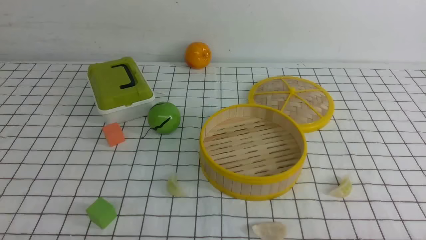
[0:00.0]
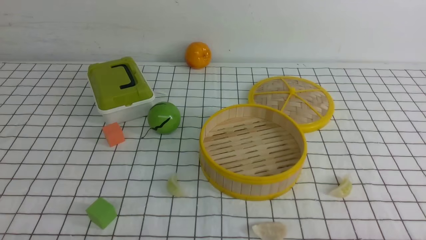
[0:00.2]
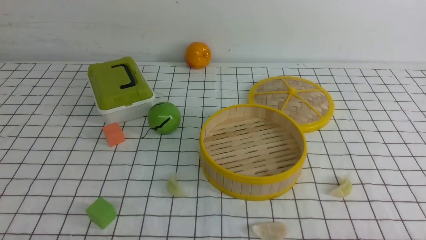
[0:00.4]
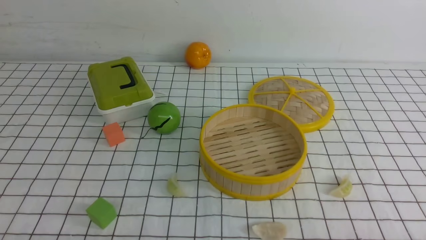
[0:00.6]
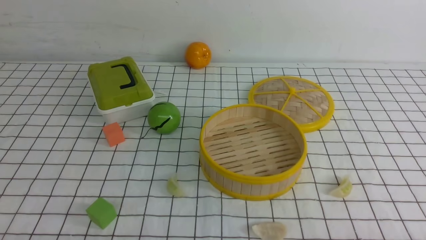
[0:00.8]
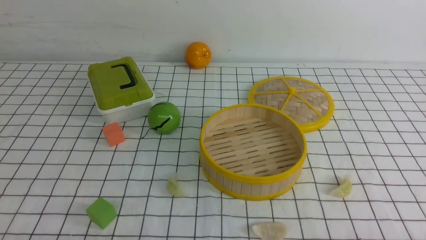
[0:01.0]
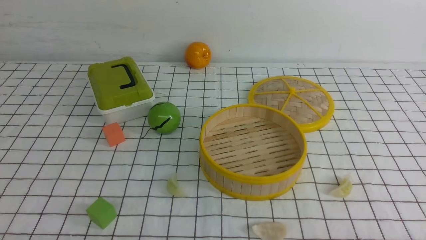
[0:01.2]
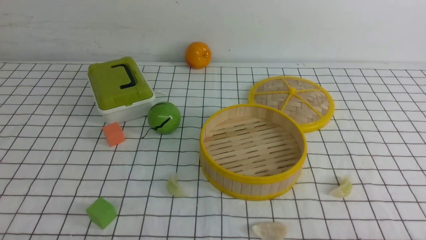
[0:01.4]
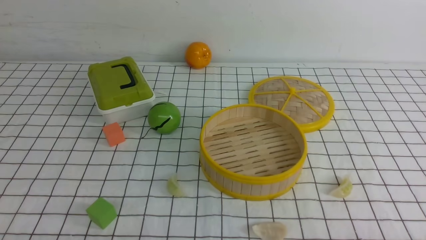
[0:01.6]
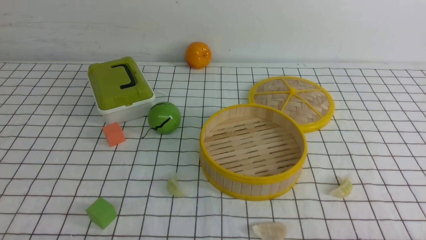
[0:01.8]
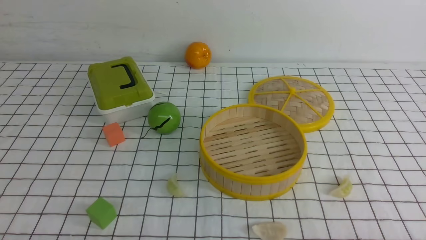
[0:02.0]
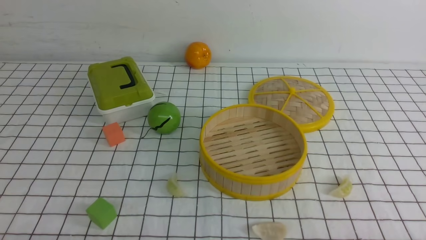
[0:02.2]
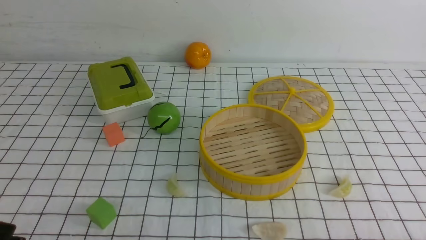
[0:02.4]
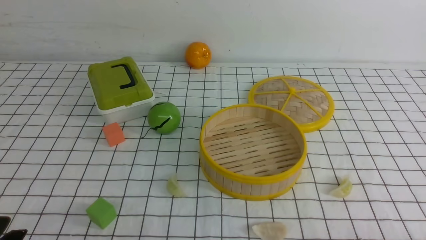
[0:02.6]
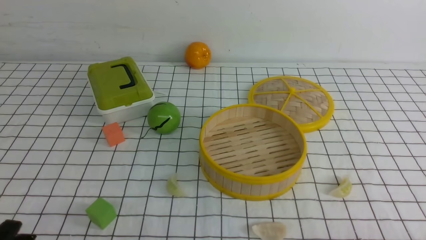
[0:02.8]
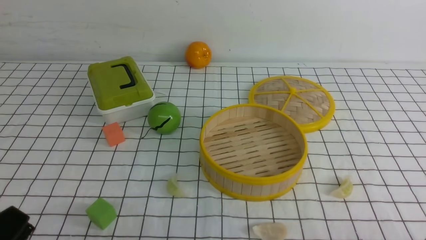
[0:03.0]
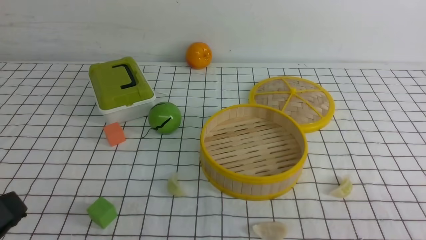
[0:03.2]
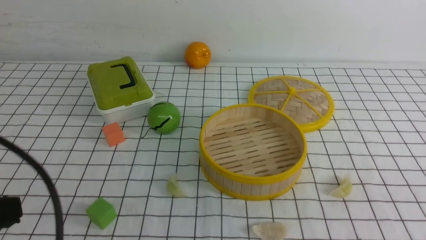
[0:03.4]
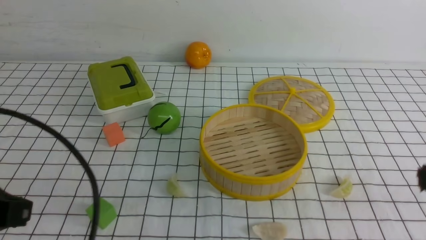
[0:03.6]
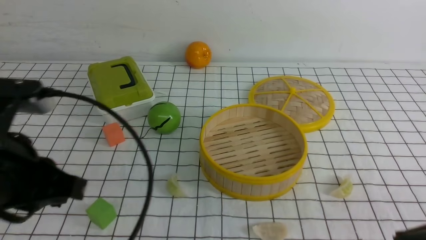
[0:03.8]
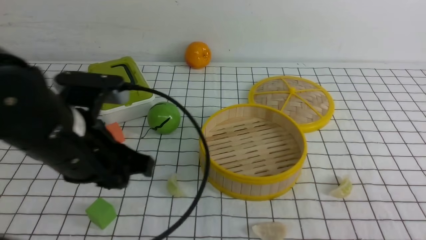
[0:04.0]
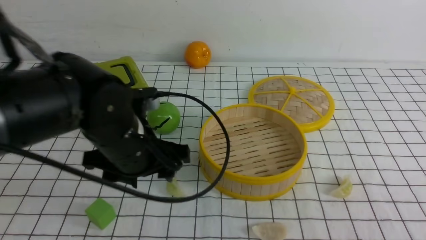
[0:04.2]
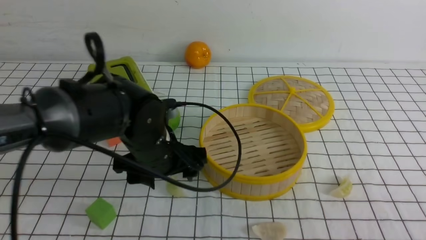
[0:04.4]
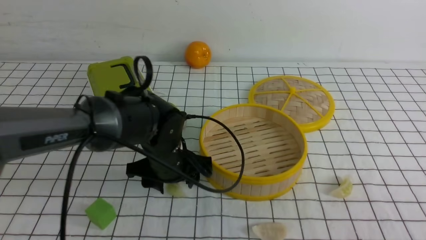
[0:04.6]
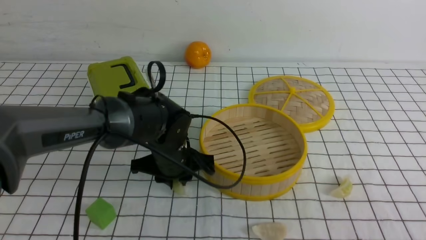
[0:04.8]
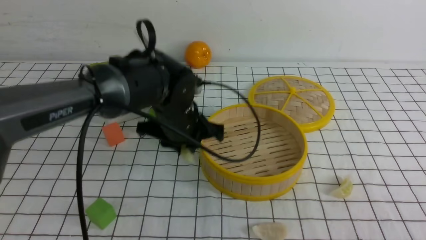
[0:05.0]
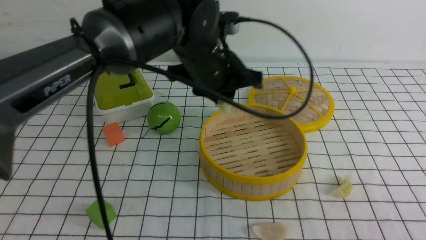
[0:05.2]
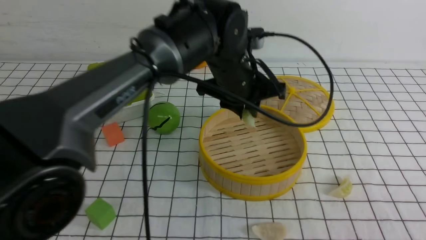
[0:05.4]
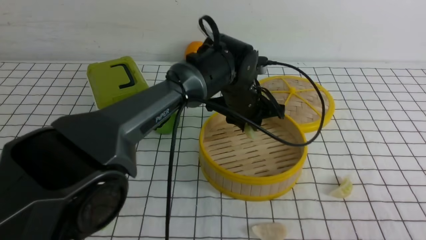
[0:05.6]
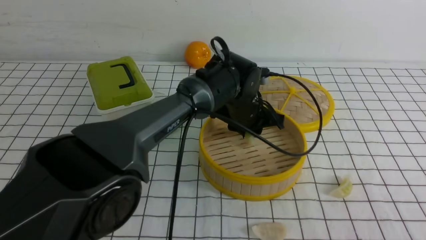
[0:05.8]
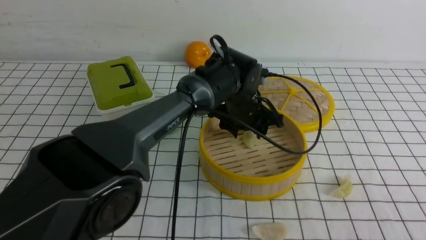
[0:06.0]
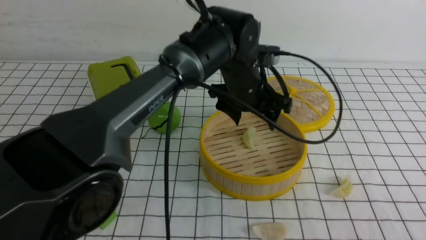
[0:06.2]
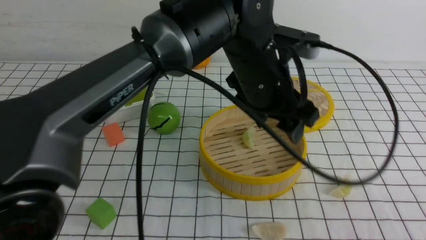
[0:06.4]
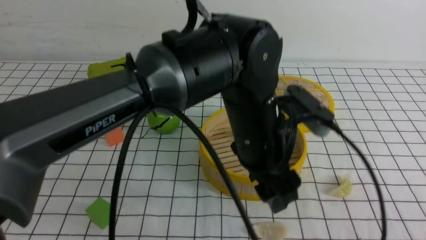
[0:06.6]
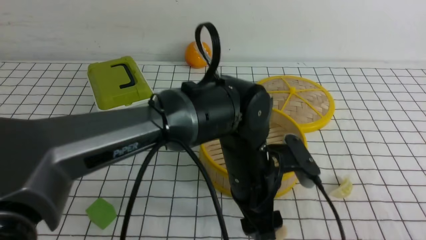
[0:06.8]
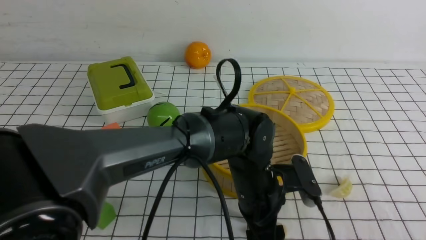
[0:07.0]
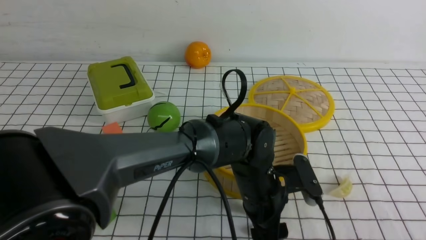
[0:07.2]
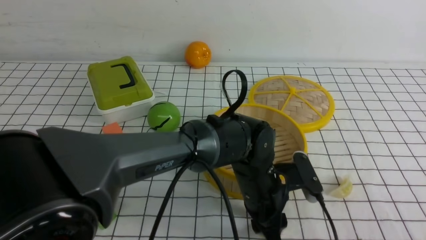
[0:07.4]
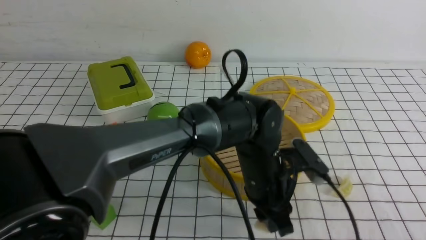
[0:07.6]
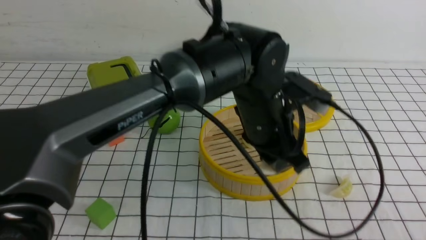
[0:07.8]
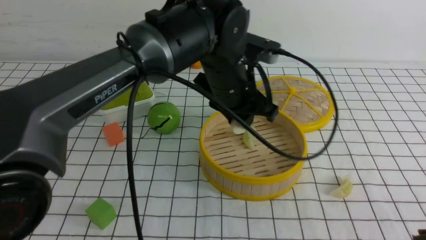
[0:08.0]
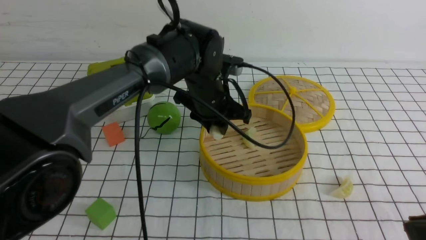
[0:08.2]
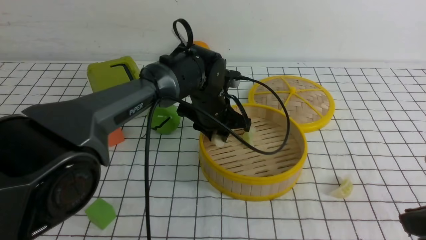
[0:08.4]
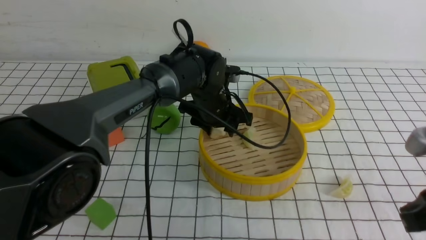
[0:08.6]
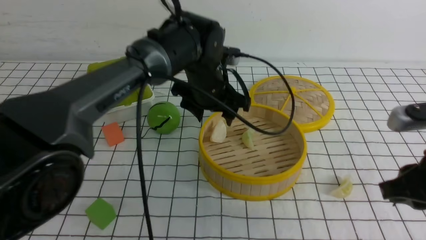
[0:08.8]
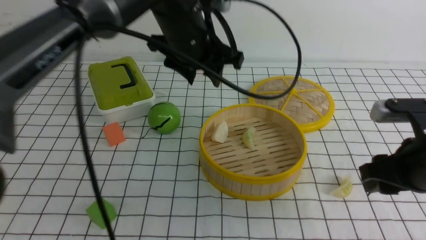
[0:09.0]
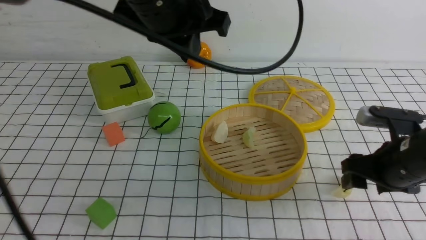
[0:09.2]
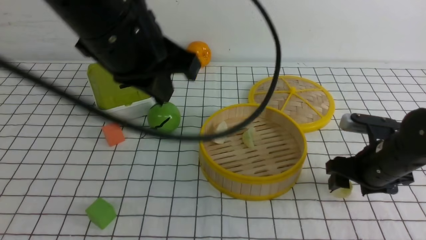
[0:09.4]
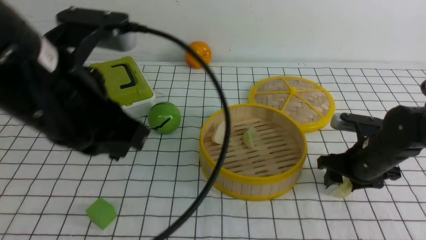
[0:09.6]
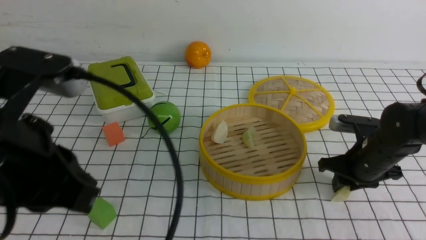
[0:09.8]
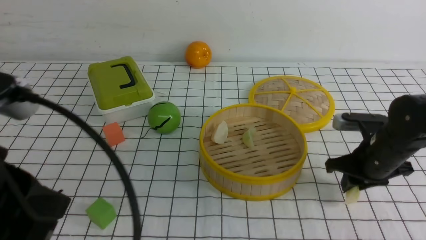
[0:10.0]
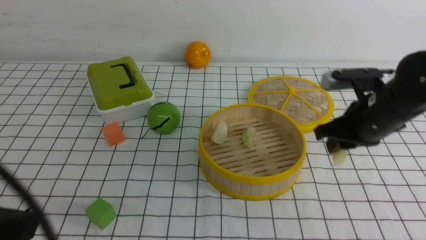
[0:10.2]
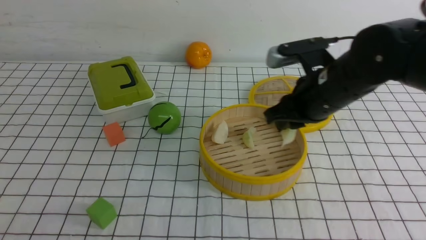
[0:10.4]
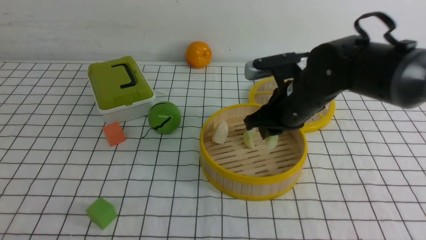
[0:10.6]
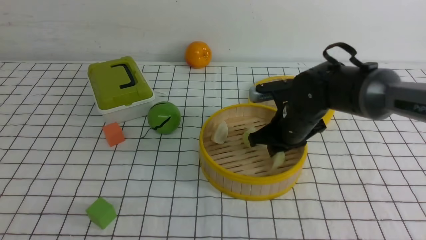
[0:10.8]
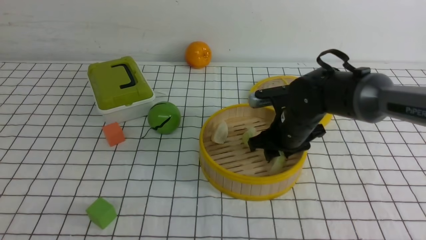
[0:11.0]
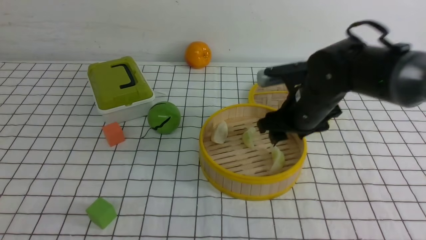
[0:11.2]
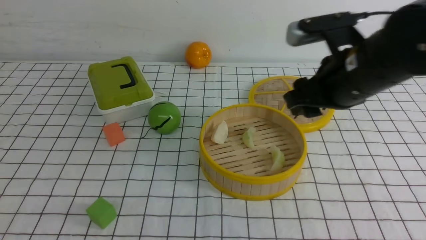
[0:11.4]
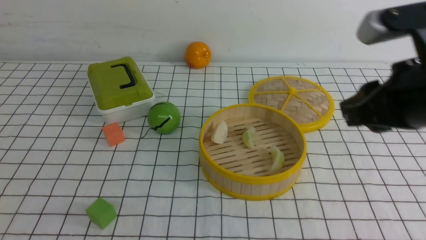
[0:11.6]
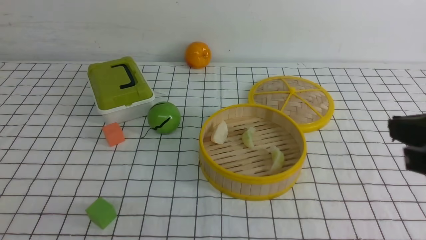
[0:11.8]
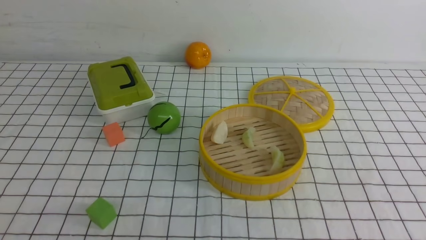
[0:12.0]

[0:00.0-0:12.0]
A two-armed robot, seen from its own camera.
Task of the whole recording: put the dumplings into the steamer on the table with the white tablecloth.
Step, 0:00.0 to 0:05.2: use the left arm to grab a dumpling.
Step, 0:05.4 to 0:06.4: use the left arm to put the dumpling into the steamer.
Step, 0:06.6 to 0:07.8: use the left arm to grab a dumpling.
Step, 0:08.0 to 0:09.0: use the left arm to put the dumpling into the steamer.
Step, 0:09.2 to 0:10.2: use the right arm to grab a dumpling.
Step, 0:10.4 to 0:11.2: use the right arm to put the dumpling into the steamer.
0:01.6 to 0:03.0: The left gripper travels upward by approximately 5 cm.
0:03.0 to 0:04.4: The left gripper heads forward and to the right, covering about 30 cm, and opens. The right gripper moves upward, about 10 cm, and closes its fingers.
0:04.4 to 0:06.0: The left gripper heads to the right and forward, covering roughly 20 cm.
0:06.0 to 0:07.6: The left gripper travels backward by approximately 15 cm, and opens, then closes once more.
0:07.6 to 0:09.0: The left gripper goes approximately 20 cm upward, to the left and forward; the right gripper moves forward, roughly 15 cm, and opens.
0:09.0 to 0:10.4: The right gripper goes roughly 15 cm forward and to the left, and opens, then closes again, while the left gripper travels backward and to the left by roughly 40 cm, and closes its fingers.
0:10.4 to 0:12.0: The left gripper shifts roughly 5 cm backward, while the right gripper goes approximately 25 cm backward and upward, and opens, then closes again.

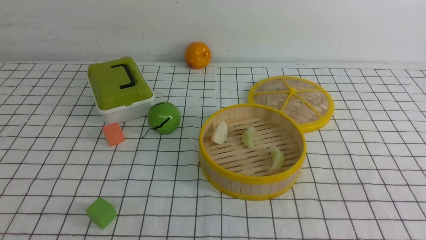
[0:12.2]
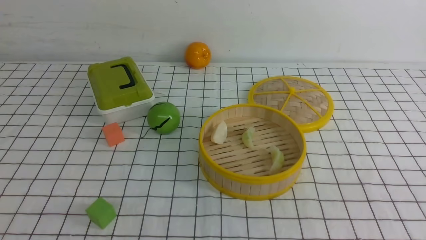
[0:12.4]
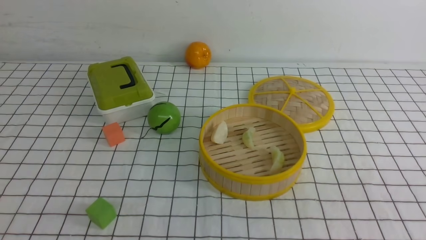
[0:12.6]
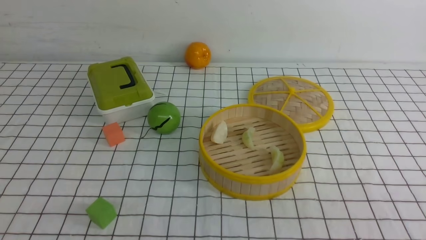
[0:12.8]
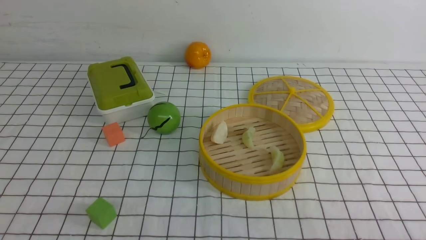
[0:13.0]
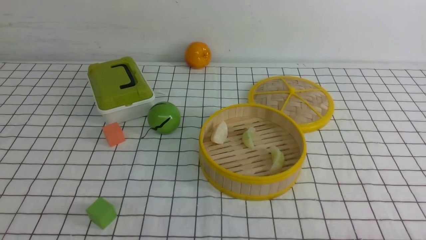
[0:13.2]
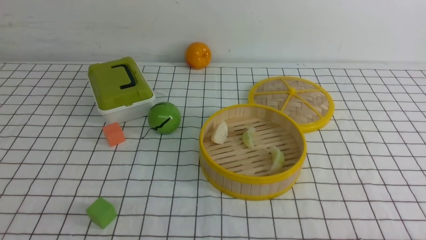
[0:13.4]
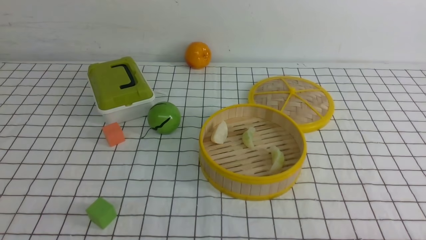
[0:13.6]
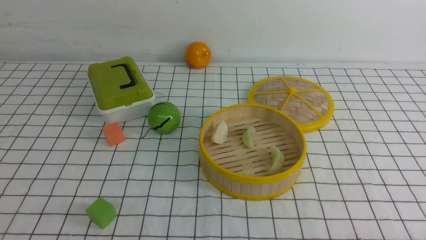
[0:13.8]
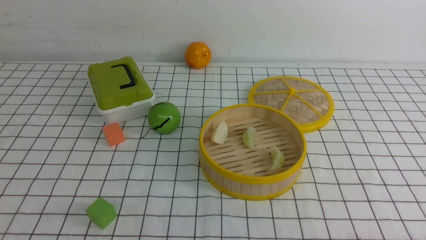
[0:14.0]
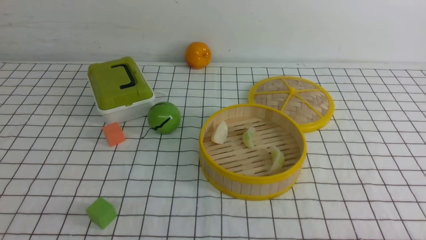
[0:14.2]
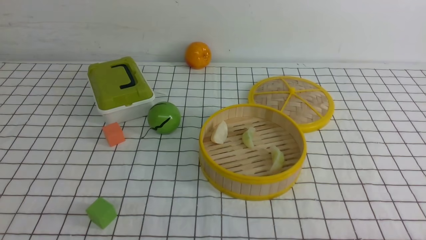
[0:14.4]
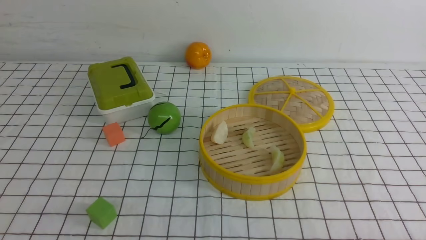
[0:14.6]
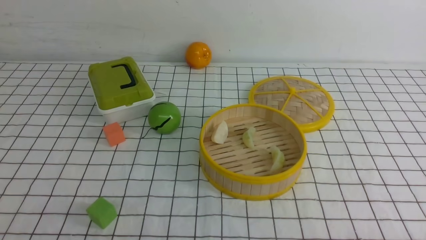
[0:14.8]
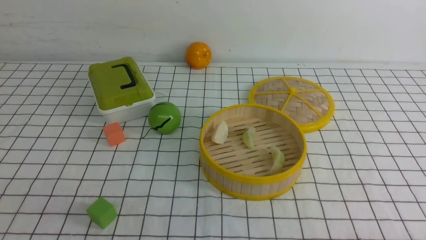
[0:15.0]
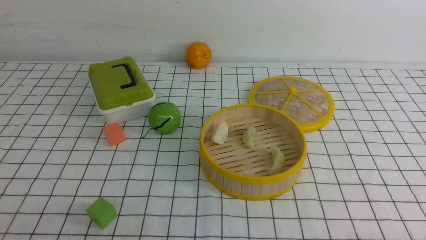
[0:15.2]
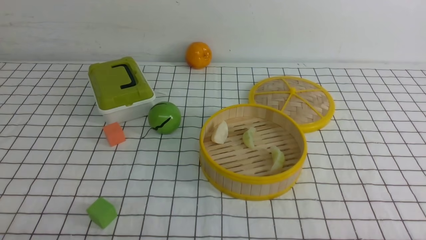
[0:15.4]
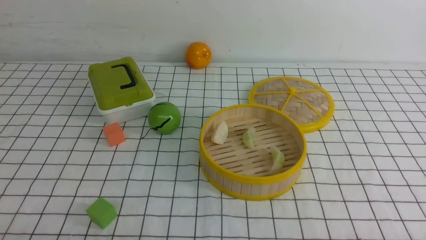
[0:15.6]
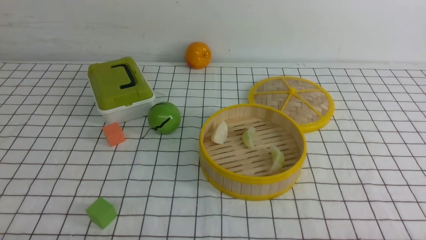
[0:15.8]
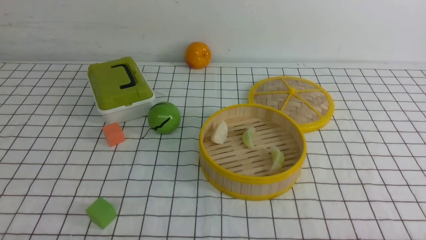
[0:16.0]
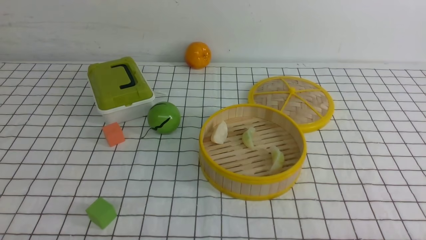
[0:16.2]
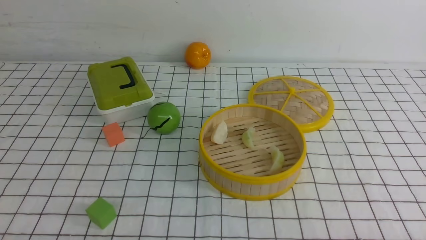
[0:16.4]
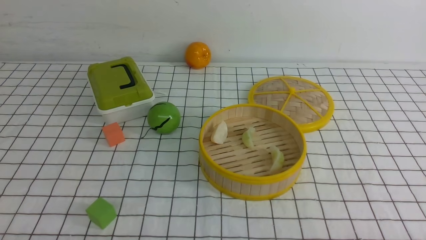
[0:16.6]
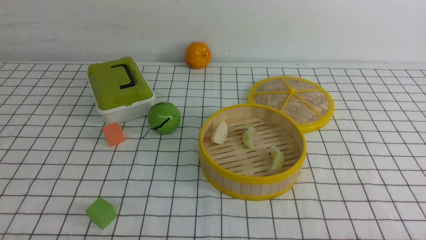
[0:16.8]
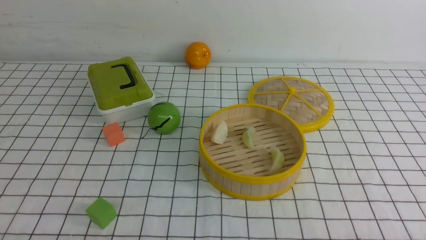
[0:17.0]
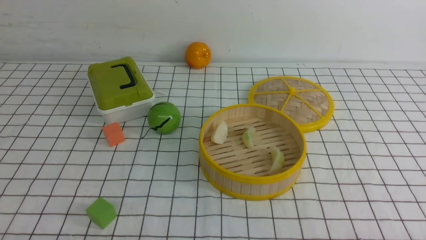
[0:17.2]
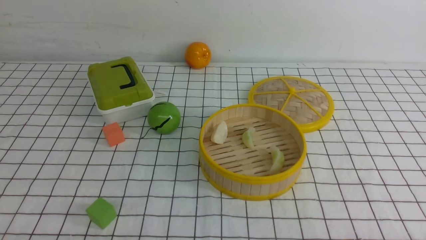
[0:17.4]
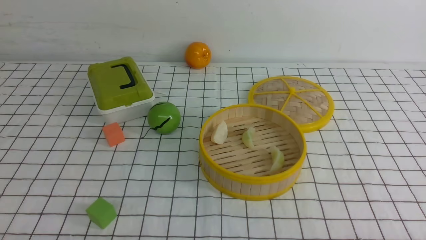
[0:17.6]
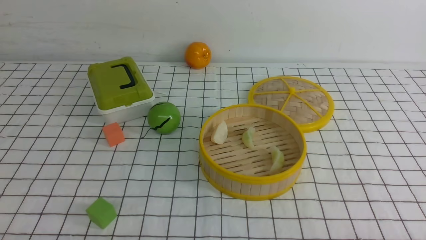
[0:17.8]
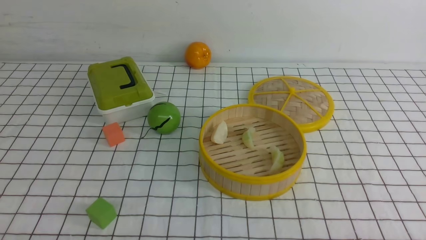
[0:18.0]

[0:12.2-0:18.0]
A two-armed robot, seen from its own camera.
Task of the whole recording: put the dumplings into the steamer on the table with the white tablecloth.
0:16.6 to 0:18.0: The two grippers keep their place.
